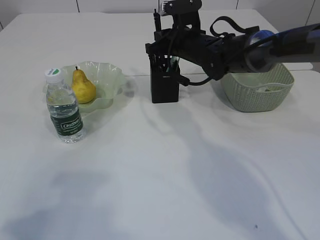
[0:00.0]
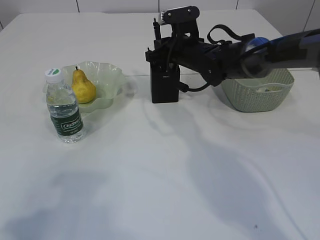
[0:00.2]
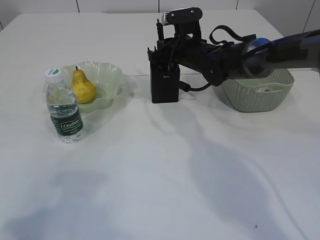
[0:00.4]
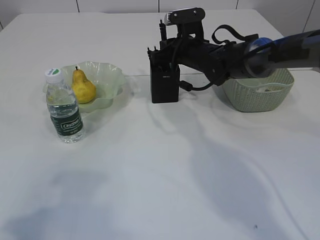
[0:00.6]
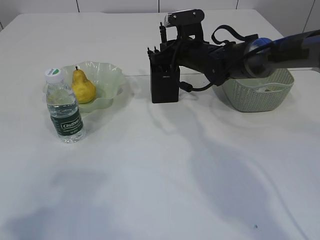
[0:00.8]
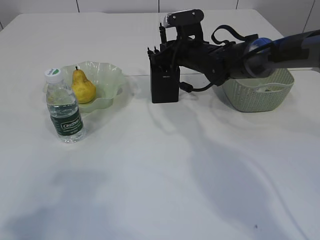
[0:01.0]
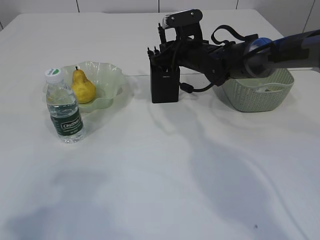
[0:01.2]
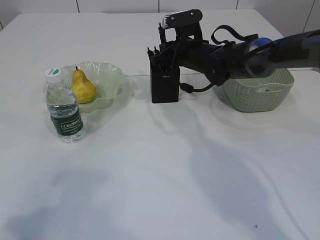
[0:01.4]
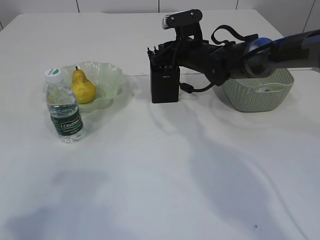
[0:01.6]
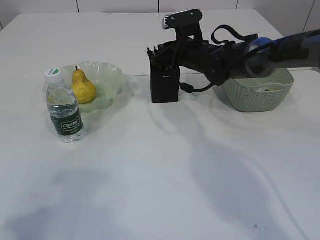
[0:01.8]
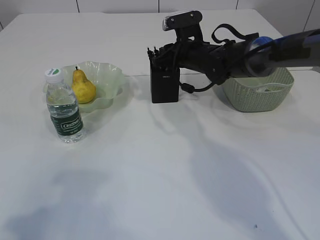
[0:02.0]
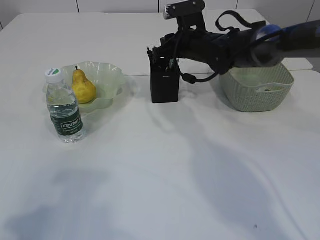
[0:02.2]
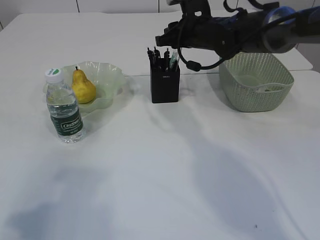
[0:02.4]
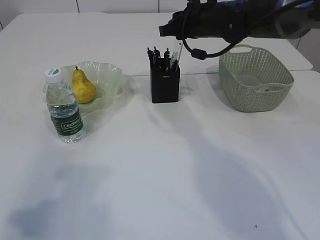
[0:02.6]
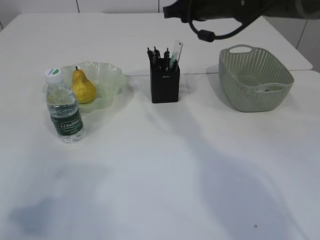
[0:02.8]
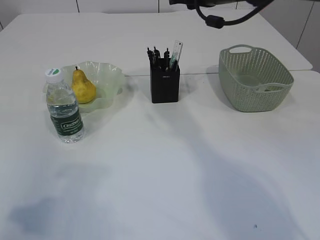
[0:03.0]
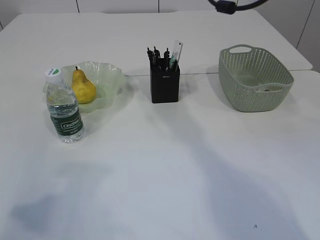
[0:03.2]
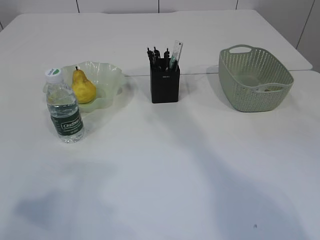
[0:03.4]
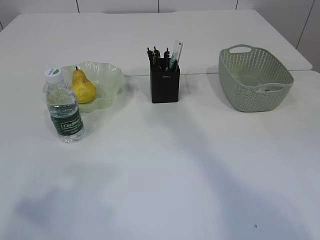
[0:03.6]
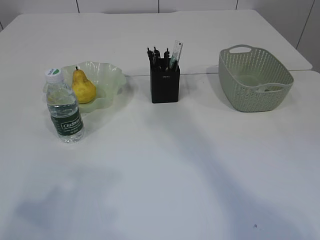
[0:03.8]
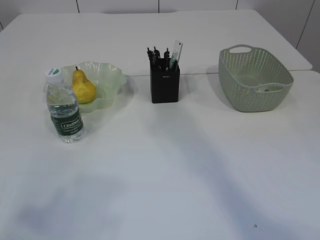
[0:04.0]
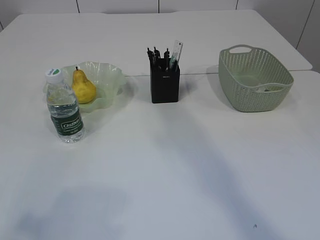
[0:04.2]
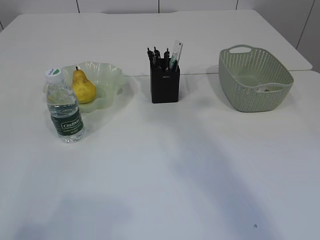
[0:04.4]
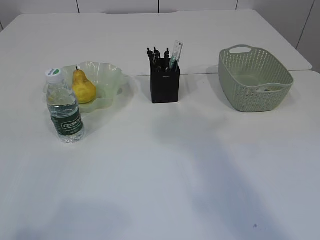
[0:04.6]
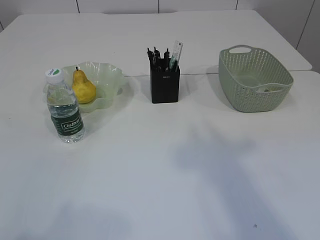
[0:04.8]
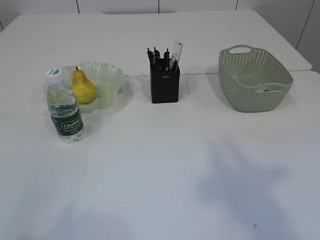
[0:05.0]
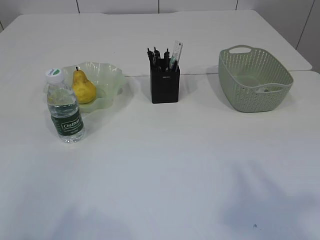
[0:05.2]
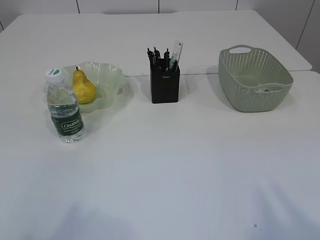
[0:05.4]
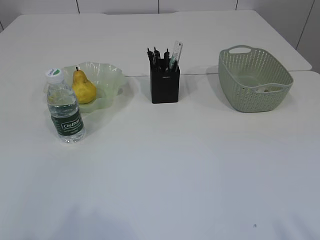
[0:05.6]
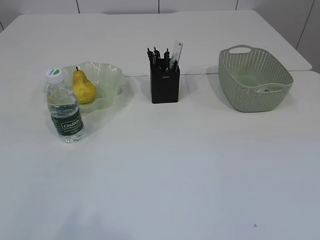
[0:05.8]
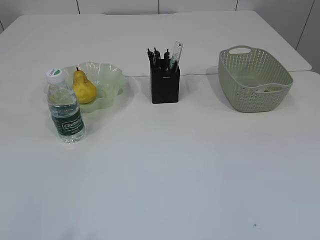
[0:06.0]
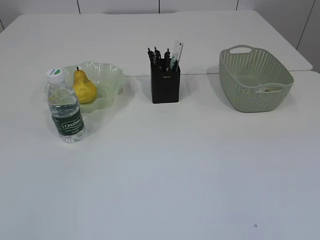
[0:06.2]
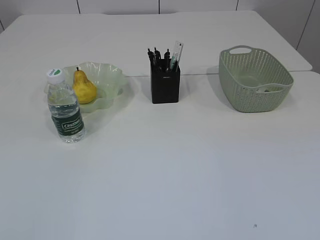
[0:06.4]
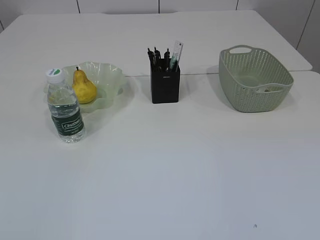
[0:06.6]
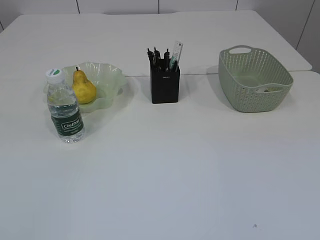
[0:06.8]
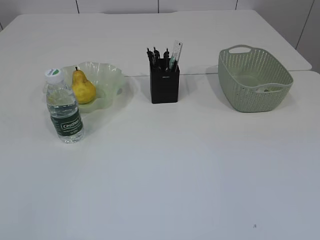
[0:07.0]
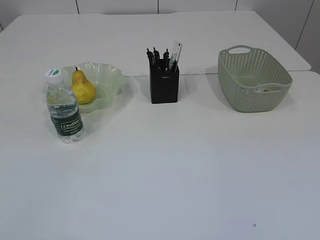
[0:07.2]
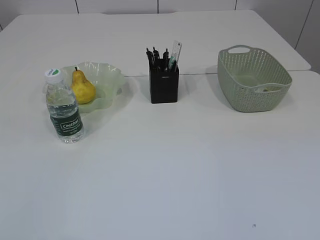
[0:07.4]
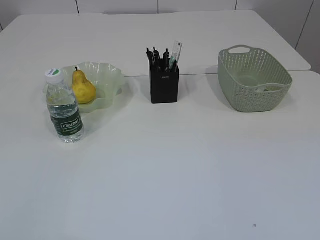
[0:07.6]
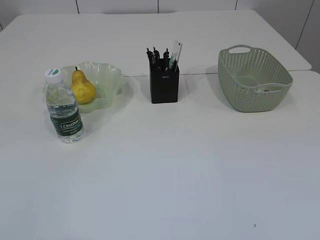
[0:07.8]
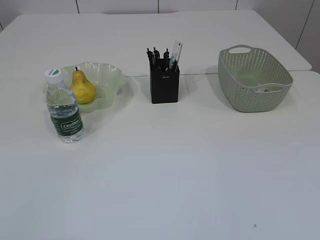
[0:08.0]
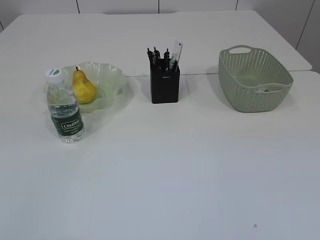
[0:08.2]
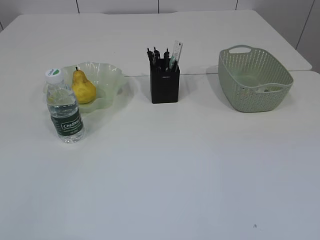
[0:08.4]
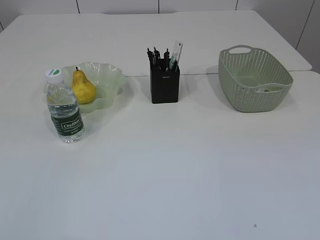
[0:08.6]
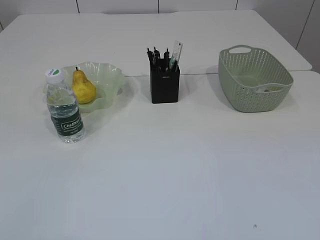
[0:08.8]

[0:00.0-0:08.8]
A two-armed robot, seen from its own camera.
Step, 0:00.0 to 0:02.4: Place the pen into the pen holder.
0:00.0 to 0:01.4: There are only small adjustments of the grippers.
0:01.4 to 0:03.0: The right gripper is displaced upward by approximately 15 cm.
0:03.0 to 0:04.4: The left gripper is displaced backward by roughly 10 cm. The right gripper moves backward and upward, approximately 25 cm.
0:04.4 to 0:05.8: The right gripper shifts approximately 30 cm backward.
